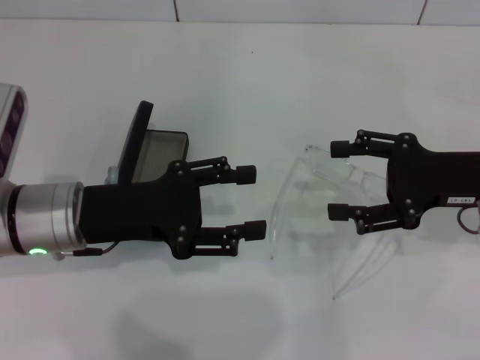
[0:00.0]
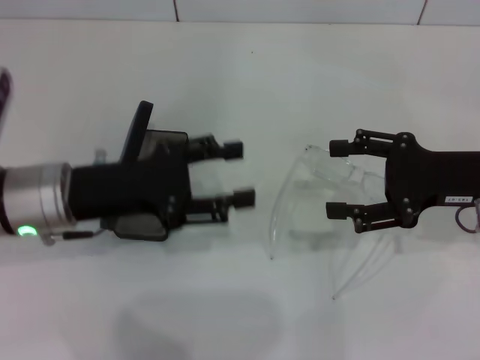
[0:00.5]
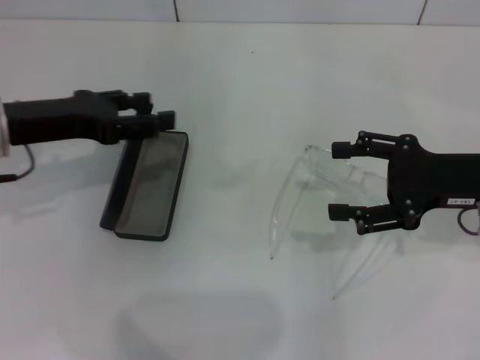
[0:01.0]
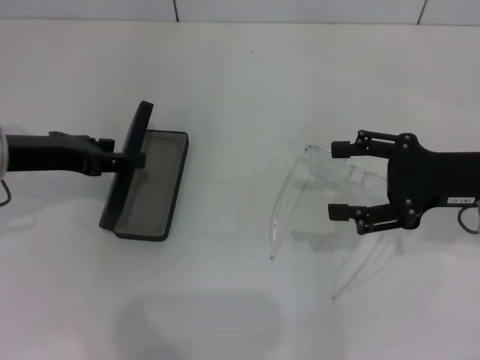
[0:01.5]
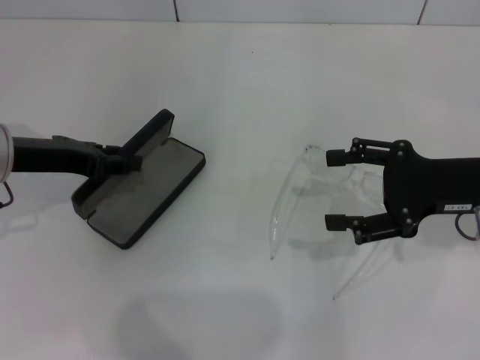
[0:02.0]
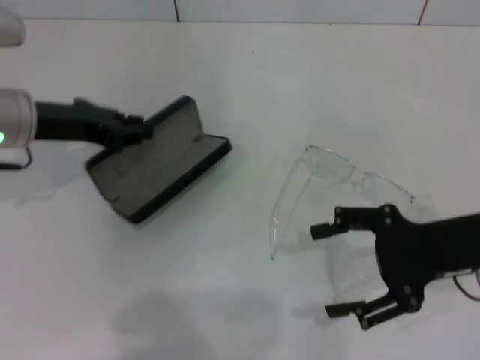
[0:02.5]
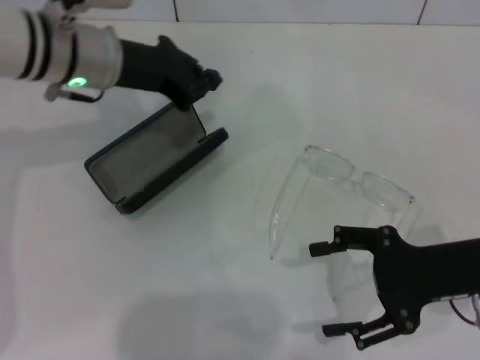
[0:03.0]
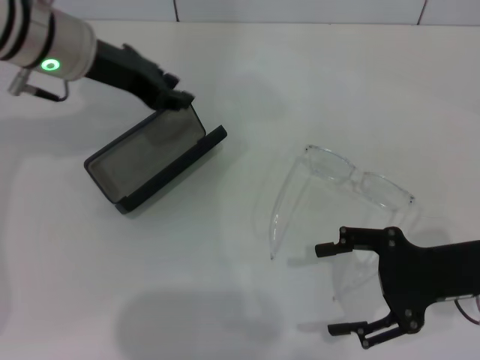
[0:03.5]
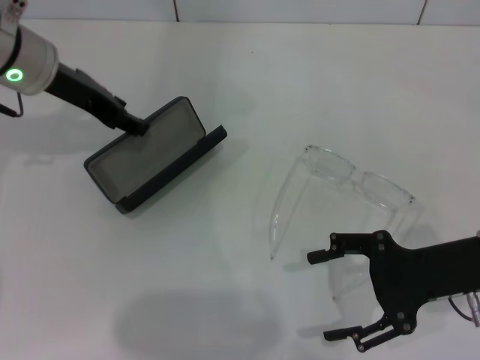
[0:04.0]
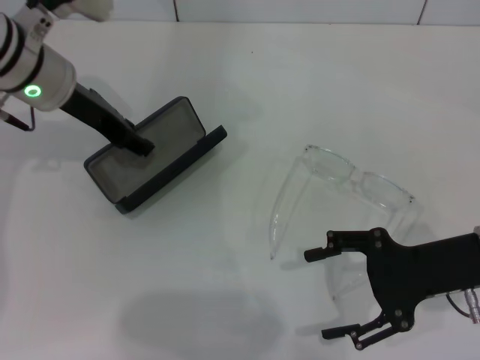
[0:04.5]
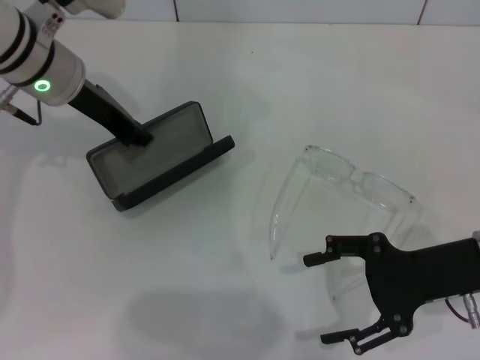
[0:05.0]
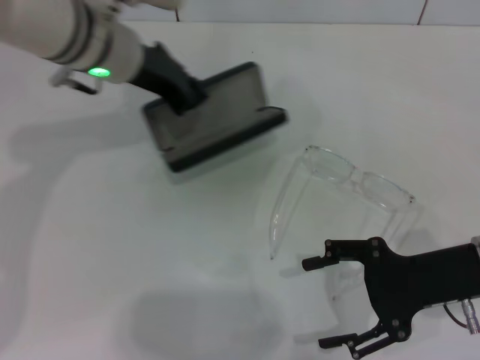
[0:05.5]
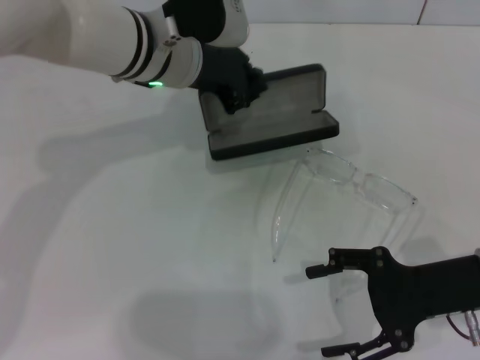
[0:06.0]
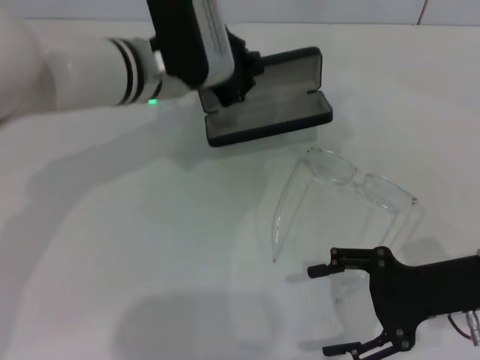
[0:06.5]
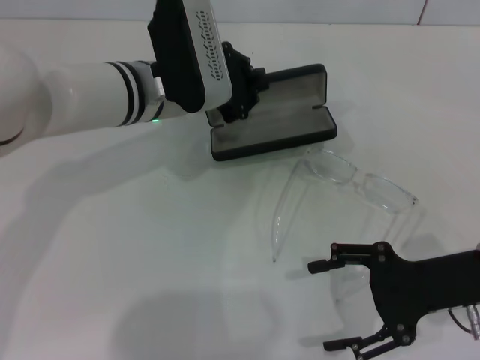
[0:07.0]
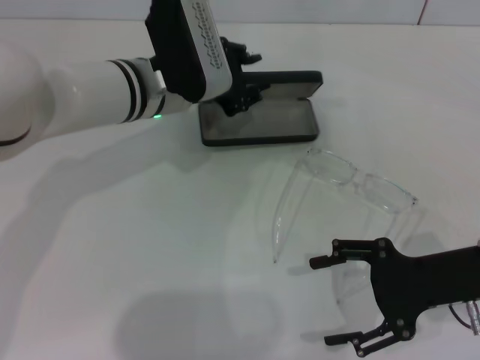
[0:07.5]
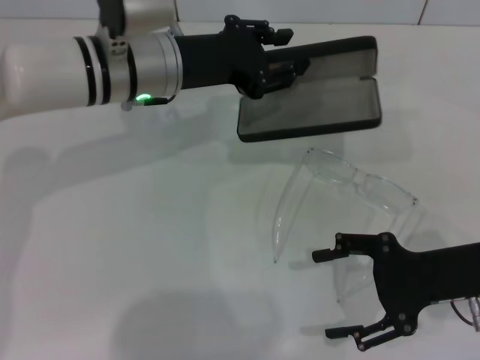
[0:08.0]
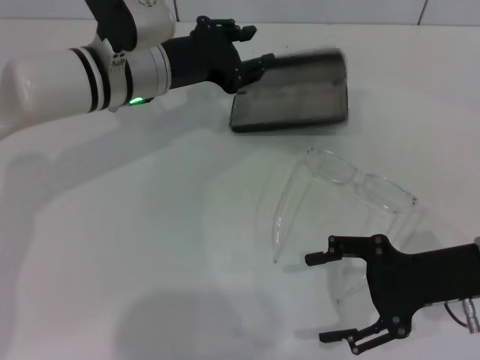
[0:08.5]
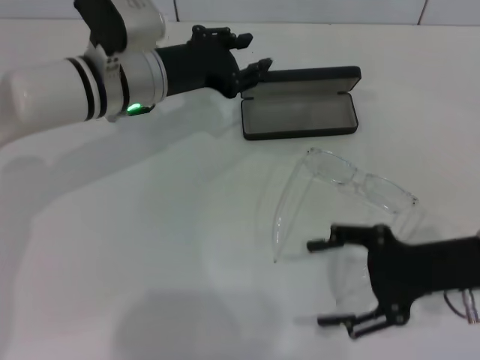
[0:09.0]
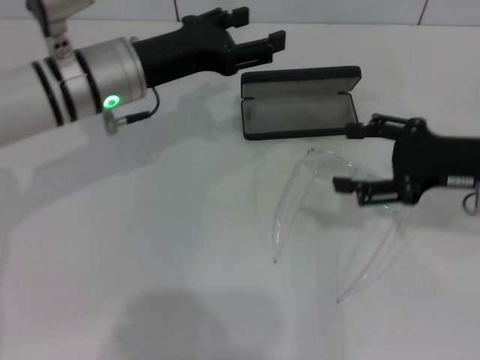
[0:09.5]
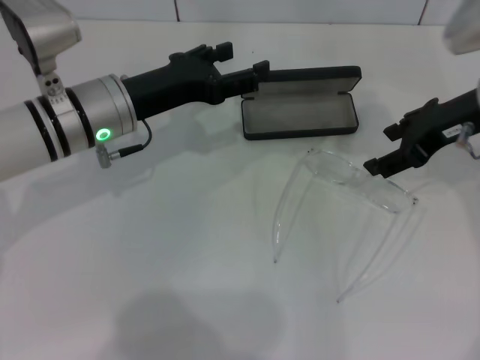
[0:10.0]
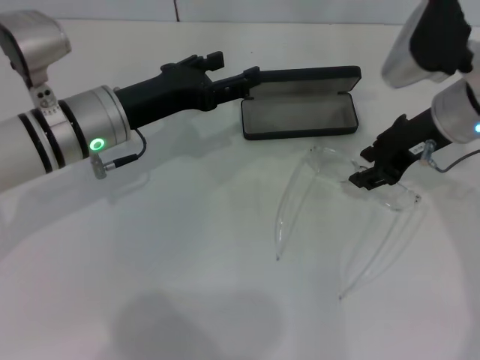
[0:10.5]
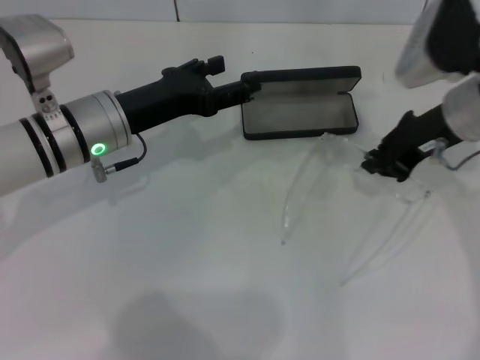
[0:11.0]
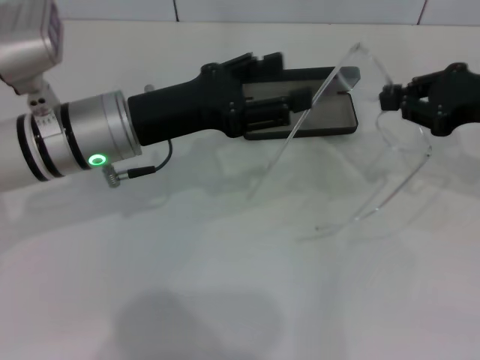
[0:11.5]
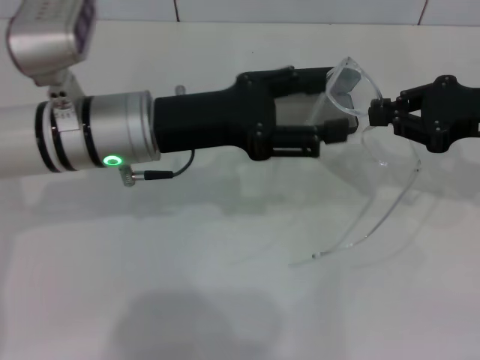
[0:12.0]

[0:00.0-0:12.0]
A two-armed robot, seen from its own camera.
Step, 0:00.0 to 0:05.0: Grab the glasses case with your left hand.
Step, 0:05.5 to 0:09.0: Place the glasses case in the center of the table with your left hand.
Step, 0:09.5 to 0:10.5: Grab the eyeglass frame with your right hand.
0:00.0 to 0:02.0: The left gripper travels to the left and forward by about 10 cm.
0:02.0 to 0:04.0: The right gripper ends up about 5 cm from where it was, while the left gripper heads forward and upward, covering about 10 cm, and closes and opens again.
0:04.0 to 0:06.0: The left gripper travels to the right by about 10 cm, and closes its fingers.
0:06.0 to 0:08.0: The left gripper opens its fingers.
0:08.0 to 0:10.0: The right gripper heads forward and upward, covering roughly 15 cm; the left gripper changes place by some 5 cm, and opens.
0:10.0 to 0:12.0: The right gripper goes some 5 cm to the right, and closes up. Meanwhile the left gripper ends up about 5 cm from where it was.

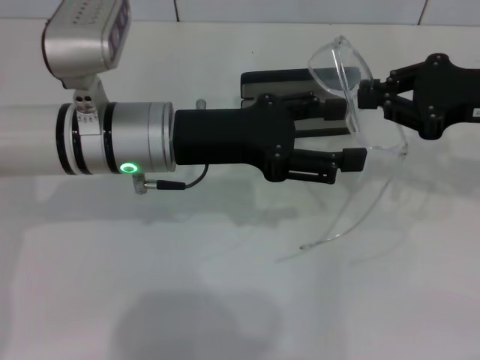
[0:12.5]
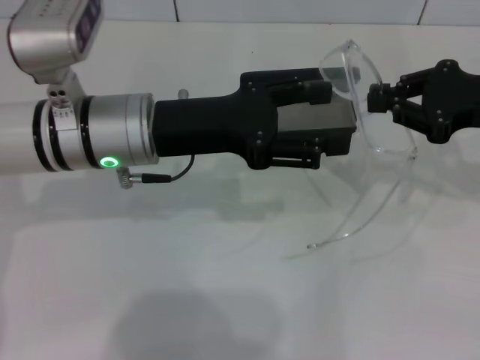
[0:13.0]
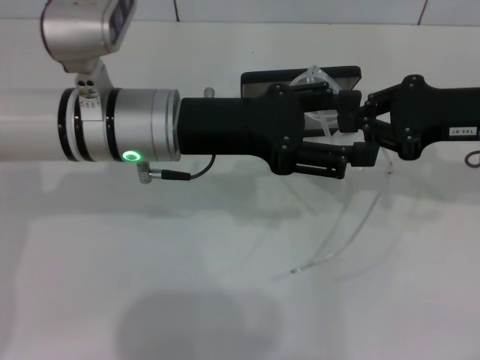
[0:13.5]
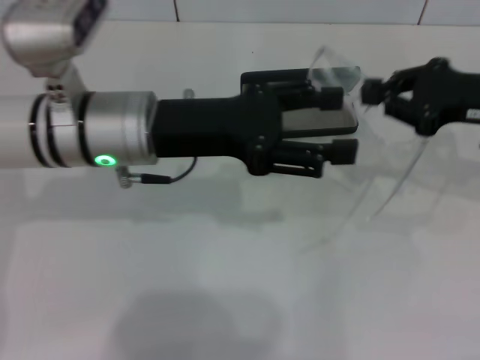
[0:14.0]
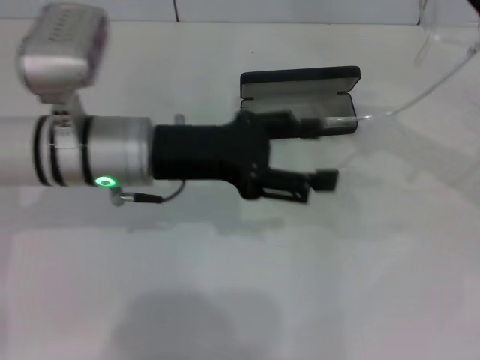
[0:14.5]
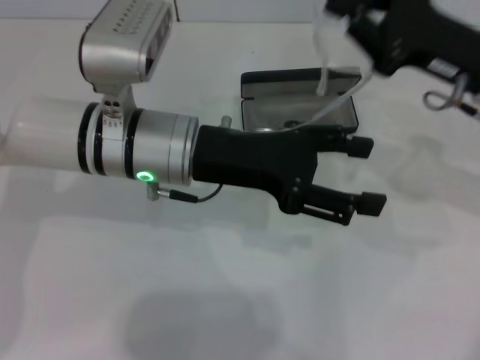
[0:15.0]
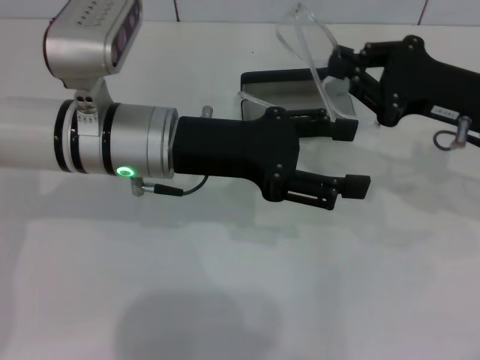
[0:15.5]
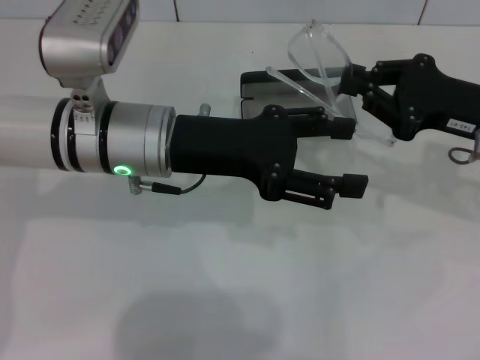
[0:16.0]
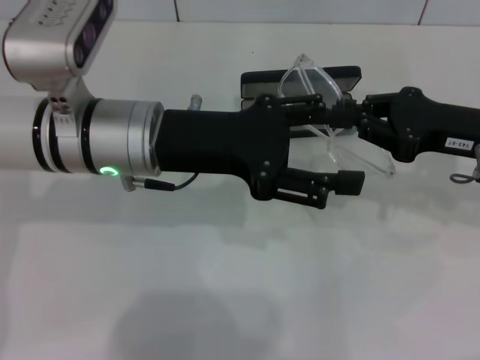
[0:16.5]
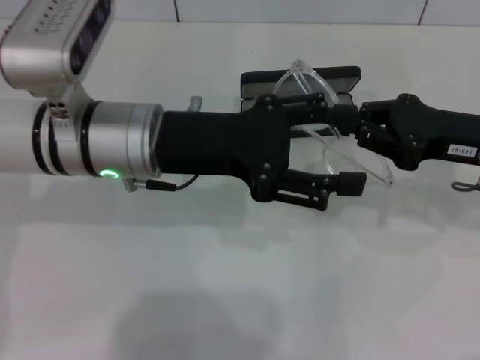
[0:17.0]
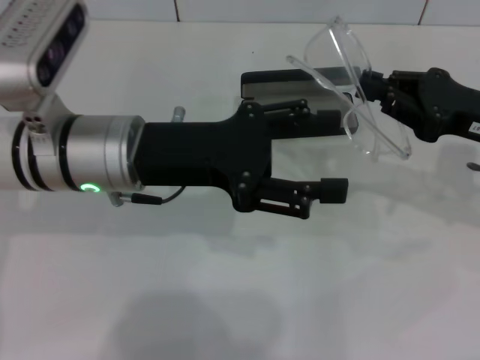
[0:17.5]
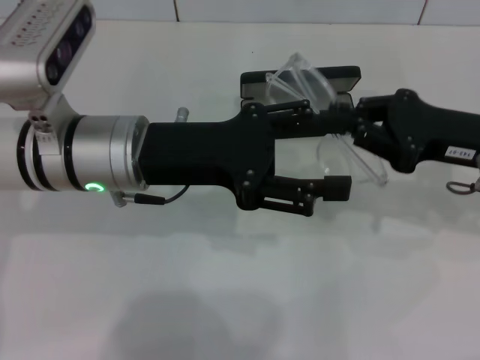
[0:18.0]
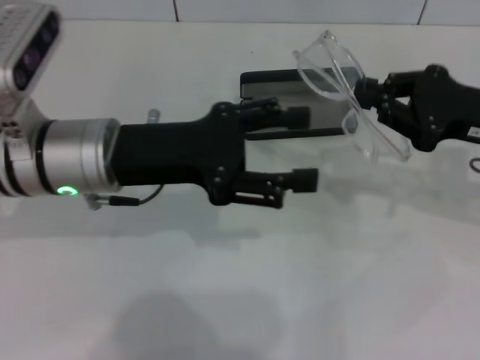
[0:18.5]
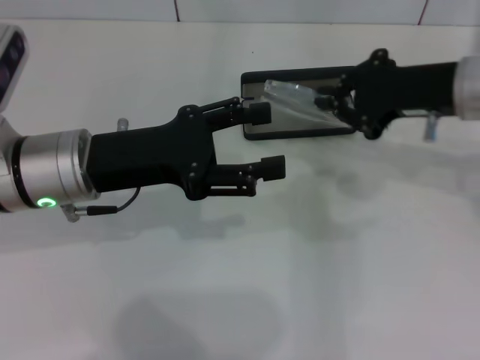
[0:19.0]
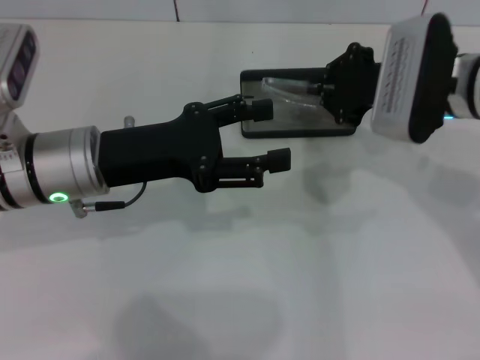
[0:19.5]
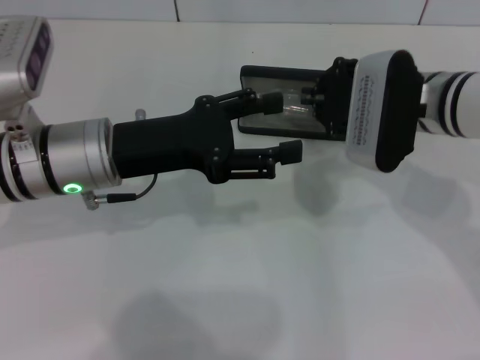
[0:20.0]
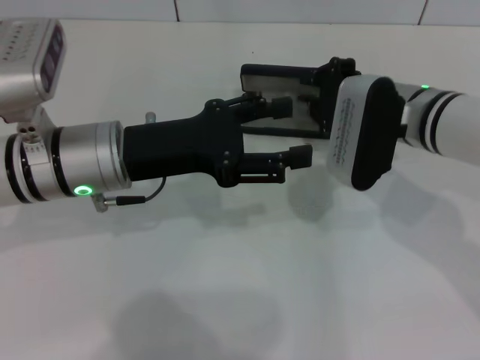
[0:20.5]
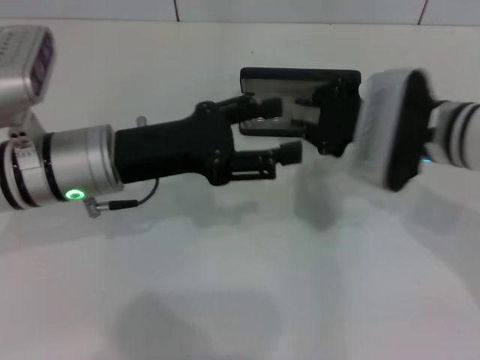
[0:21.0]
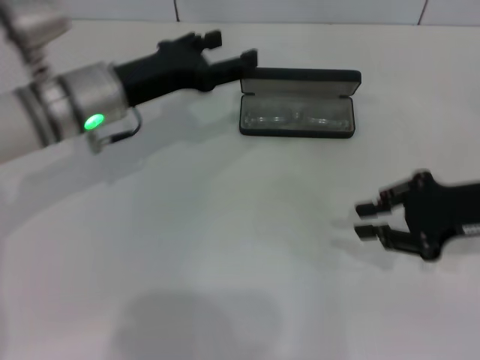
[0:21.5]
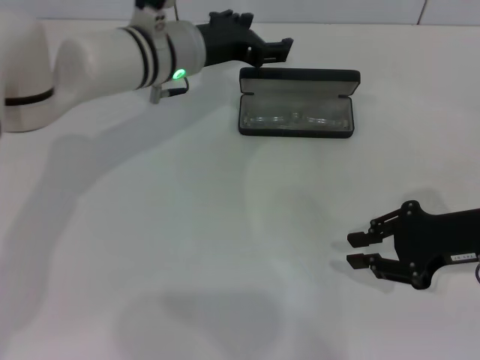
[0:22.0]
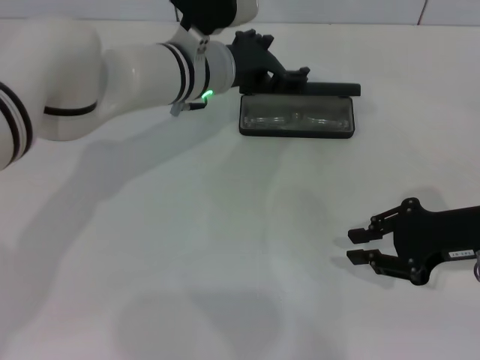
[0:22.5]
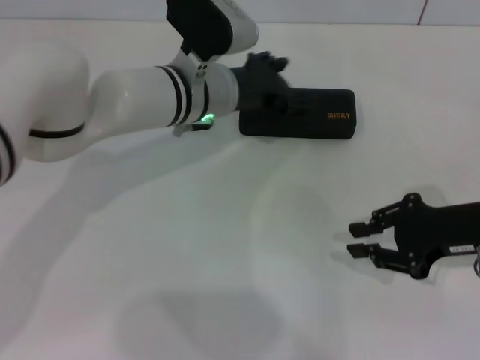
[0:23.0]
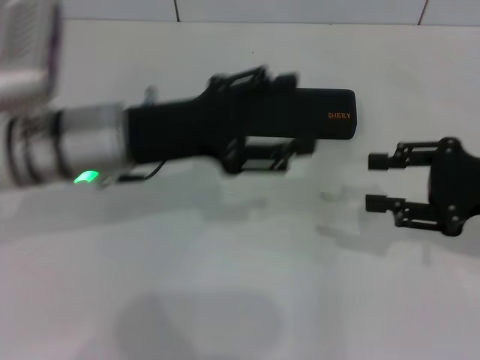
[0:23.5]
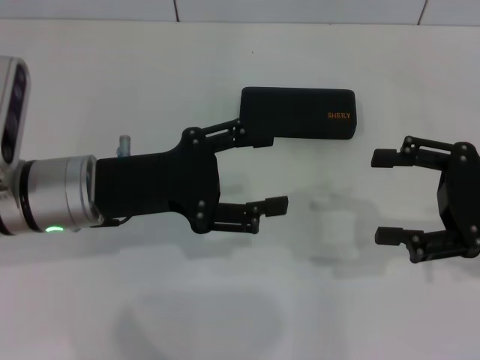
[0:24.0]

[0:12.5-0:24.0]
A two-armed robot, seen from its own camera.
Step, 0:12.5 to 0:16.5: Fold the frame with your left hand.
Step, 0:17.0 to 0:21.0: Put the glasses into the case with your right hand.
Step, 0:21.5 to 0:22.5: Close the glasses case with your left hand.
0:14.5 to 0:16.5: The right gripper changes place by about 5 cm.
0:18.5 to 0:20.0: The right gripper shifts about 10 cm to the left and forward.
0:20.0 to 0:22.0: The left gripper moves forward and to the right, roughly 15 cm, while the right gripper is displaced to the right and backward by roughly 15 cm.
0:22.0 to 0:24.0: The left gripper travels backward and to the left by approximately 20 cm. Meanwhile the right gripper shifts by some 5 cm, and opens.

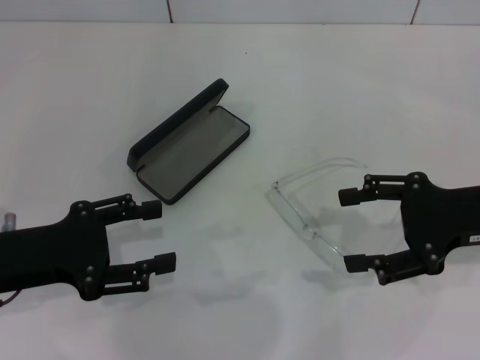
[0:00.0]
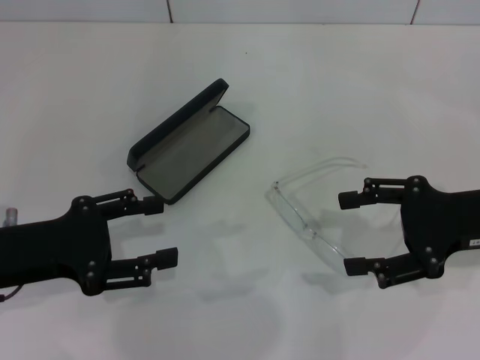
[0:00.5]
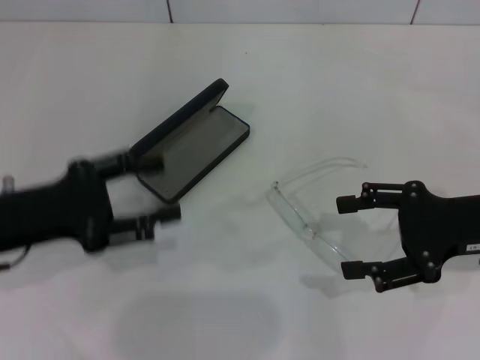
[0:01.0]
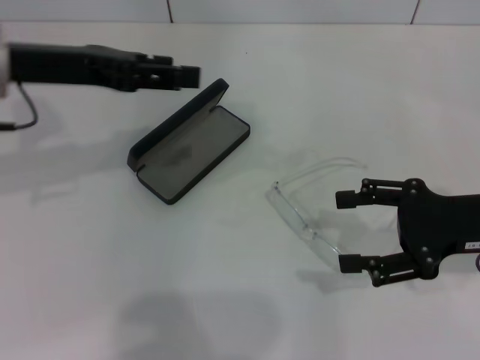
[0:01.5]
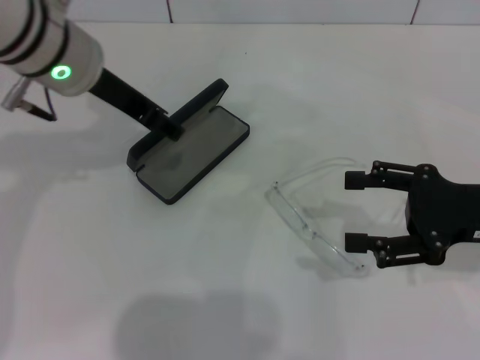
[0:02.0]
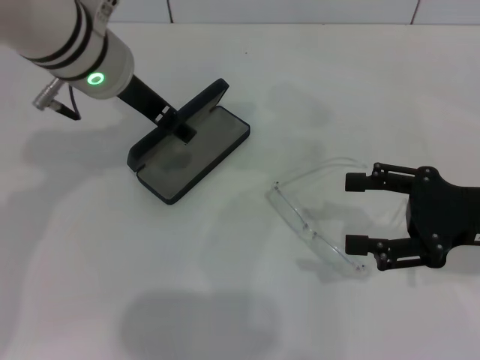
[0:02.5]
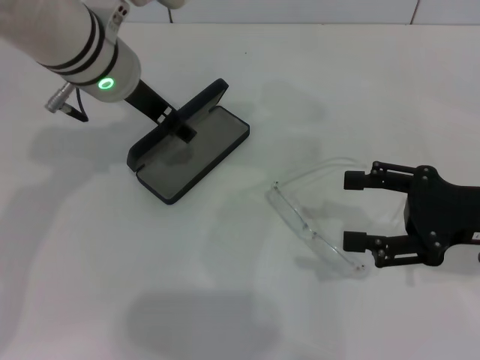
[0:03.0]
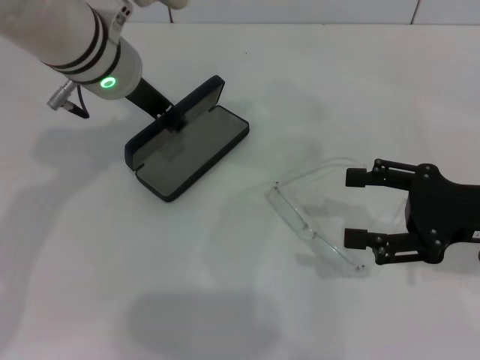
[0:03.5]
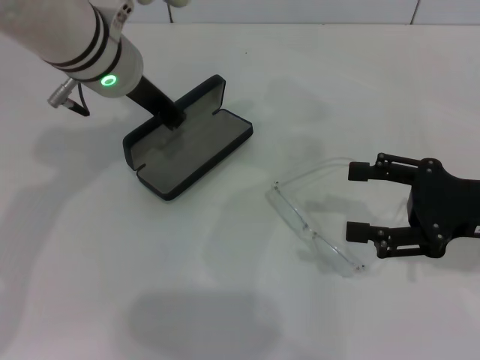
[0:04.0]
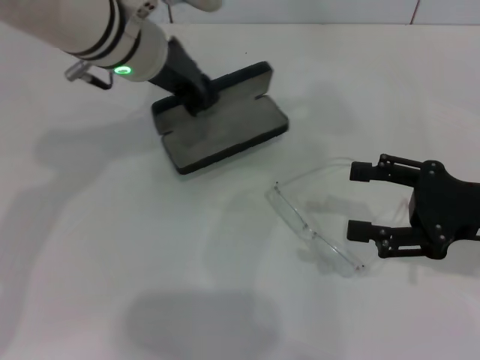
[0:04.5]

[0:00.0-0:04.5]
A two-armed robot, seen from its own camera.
Step, 0:00.0 to 0:03.5: Grab the glasses case with your left hand.
0:00.0 to 0:02.0: The left gripper shifts some 20 cm forward, to the right and upward.
0:02.0 to 0:04.5: The left gripper ends up about 5 cm from where it was, and closes.
